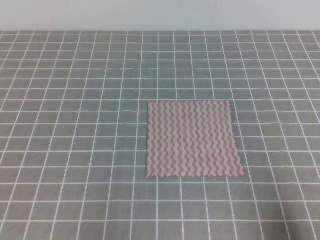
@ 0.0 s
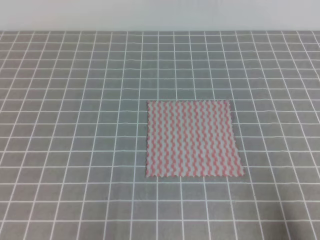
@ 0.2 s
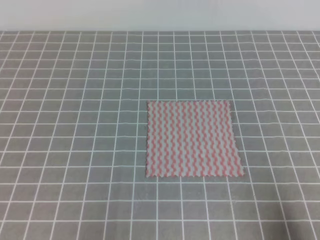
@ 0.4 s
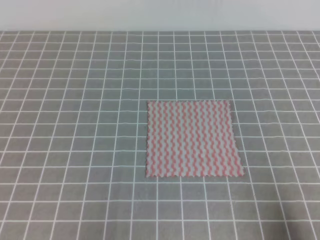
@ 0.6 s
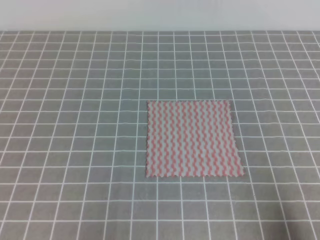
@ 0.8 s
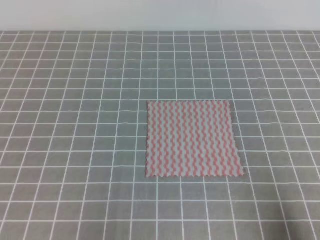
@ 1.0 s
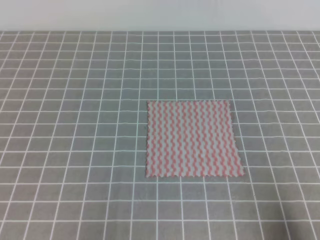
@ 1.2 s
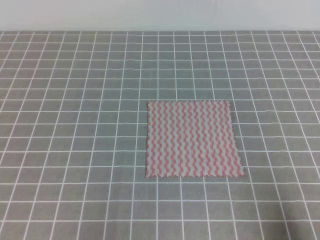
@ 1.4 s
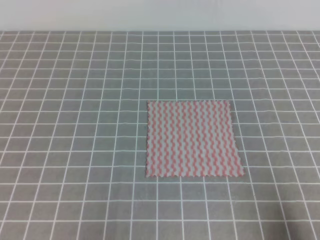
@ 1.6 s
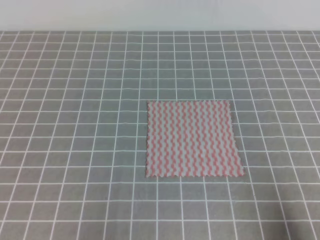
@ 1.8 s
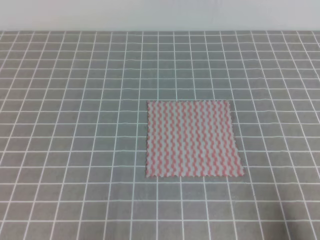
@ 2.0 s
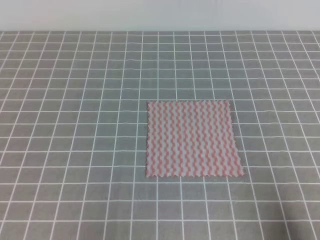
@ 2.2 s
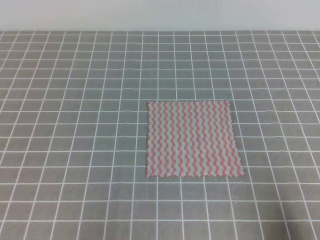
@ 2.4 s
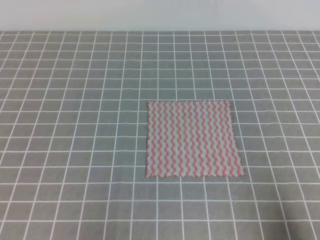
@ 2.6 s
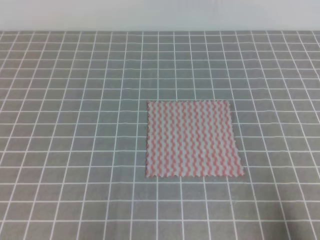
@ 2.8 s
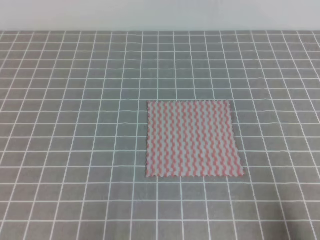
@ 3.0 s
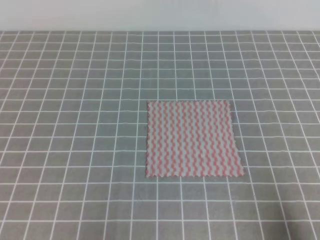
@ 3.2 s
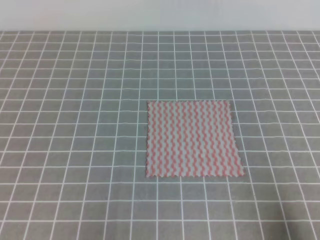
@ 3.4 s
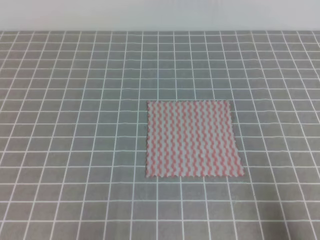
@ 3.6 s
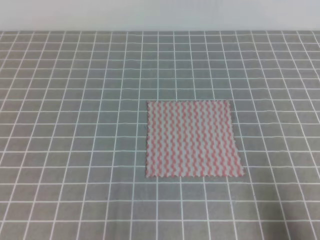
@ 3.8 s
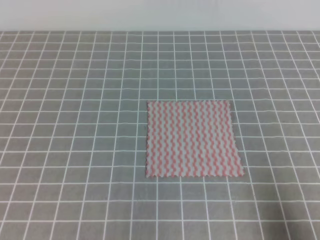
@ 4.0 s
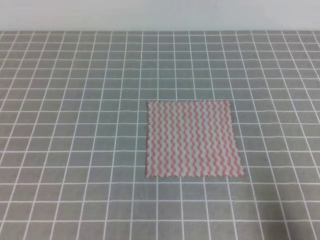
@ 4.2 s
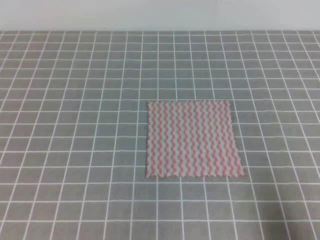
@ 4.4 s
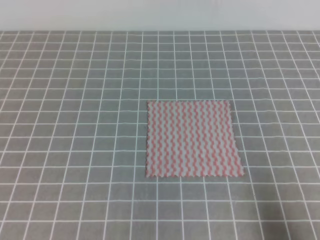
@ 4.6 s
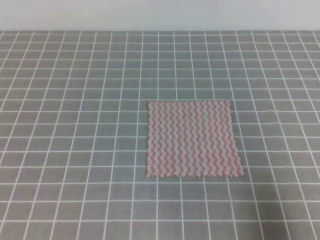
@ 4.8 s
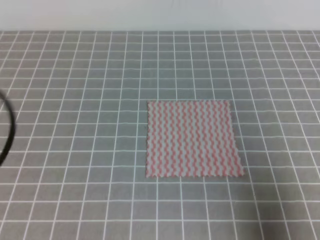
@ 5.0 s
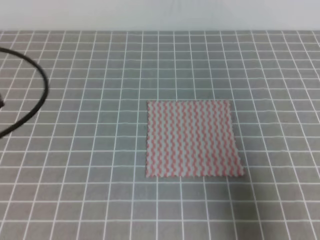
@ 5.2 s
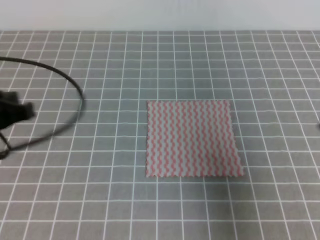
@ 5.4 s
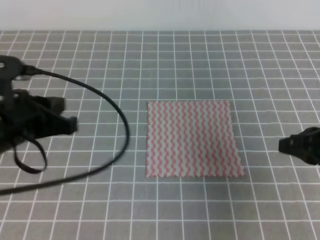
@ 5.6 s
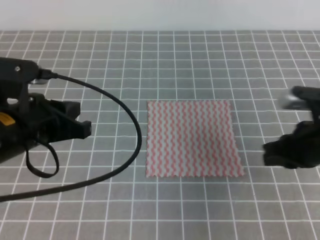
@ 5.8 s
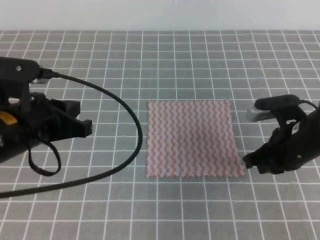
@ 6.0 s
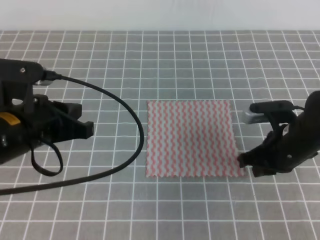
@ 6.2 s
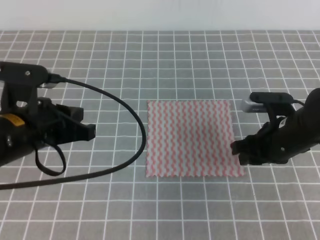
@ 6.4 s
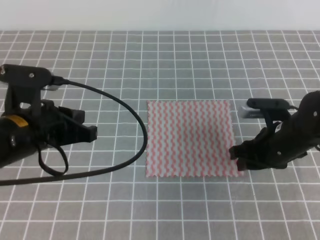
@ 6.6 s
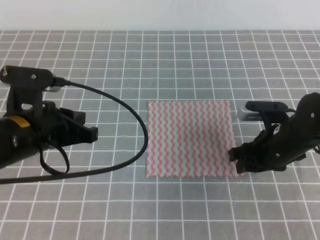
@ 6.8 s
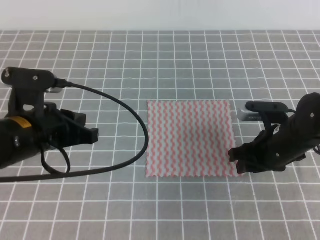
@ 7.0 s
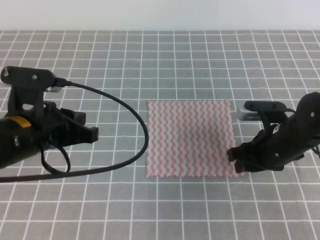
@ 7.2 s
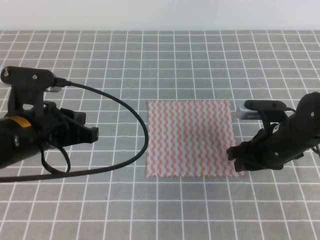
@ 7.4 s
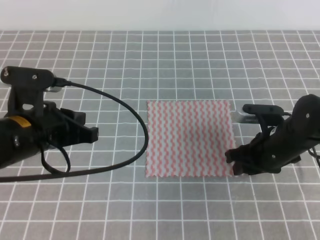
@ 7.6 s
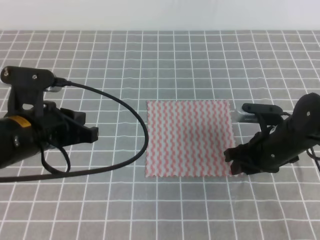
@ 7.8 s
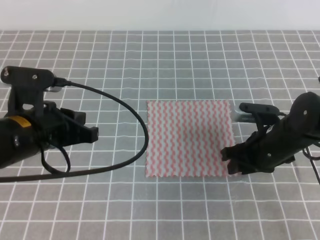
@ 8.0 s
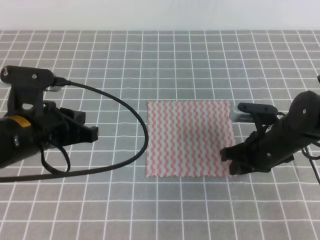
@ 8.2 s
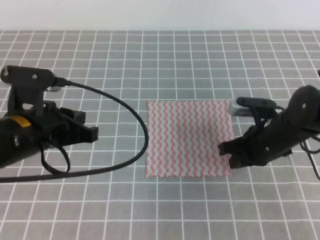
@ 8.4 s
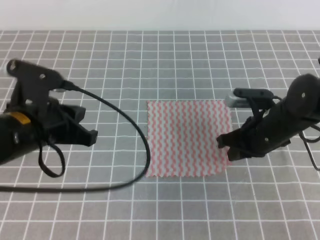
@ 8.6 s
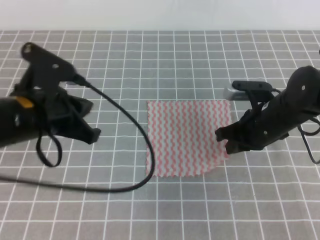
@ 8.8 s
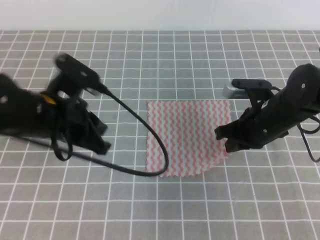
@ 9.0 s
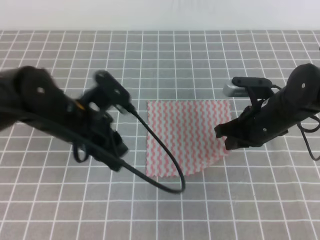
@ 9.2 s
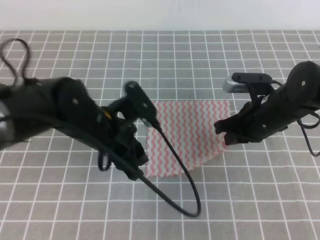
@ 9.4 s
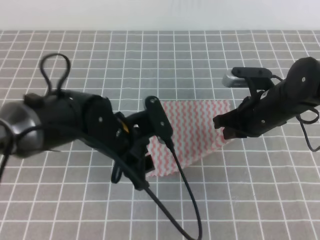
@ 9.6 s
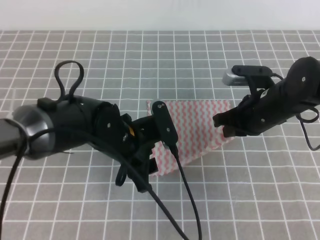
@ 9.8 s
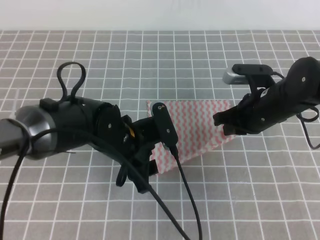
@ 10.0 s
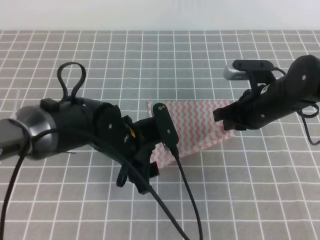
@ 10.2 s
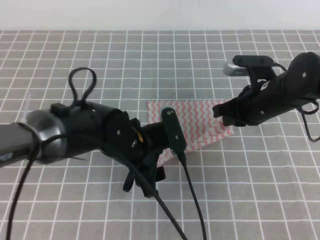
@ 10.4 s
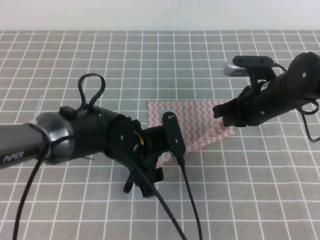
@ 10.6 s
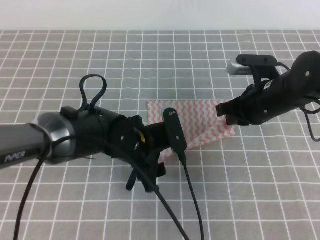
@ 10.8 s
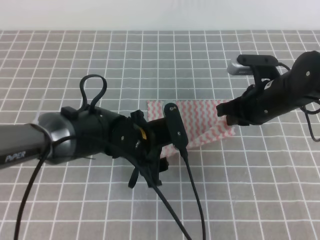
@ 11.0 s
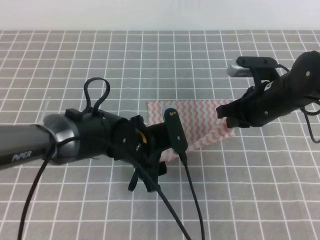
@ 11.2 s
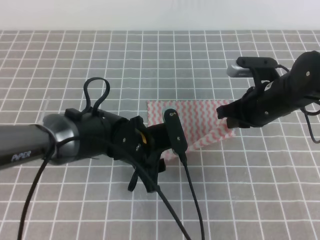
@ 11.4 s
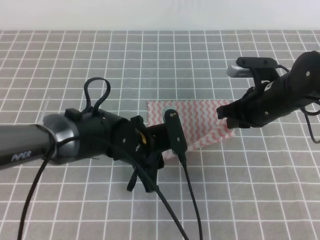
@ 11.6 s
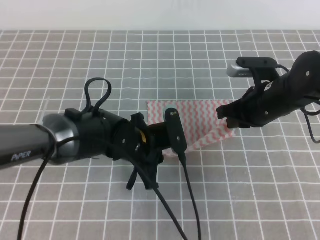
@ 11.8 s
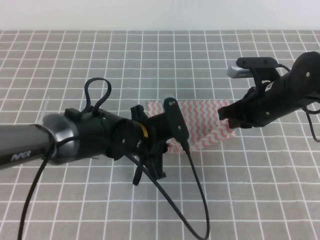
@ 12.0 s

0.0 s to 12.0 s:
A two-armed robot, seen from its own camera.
Step, 0.0 to 10.6 s: Fold the towel upwards with the both gripper.
0.0 to 3.0 s: Both grippers stay about where they are.
4.4 to 6.0 s: The left gripper goes about 20 cm forward and to the right, while the right gripper shifts some 25 cm forward and to the left.
6.0 to 7.6 s: The right gripper moves some 5 cm, and opens up.
7.6 to 9.0 s: The right gripper closes its fingers.
9.0 to 10.4 s: The left gripper travels to the right and downward by some 15 cm, and opens its fingers.
10.4 to 12.0 s: The left gripper closes its fingers.

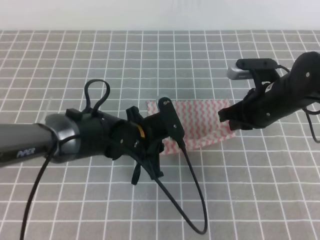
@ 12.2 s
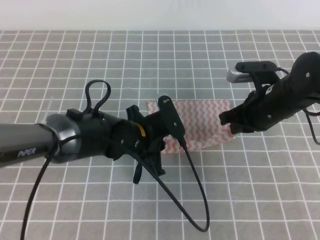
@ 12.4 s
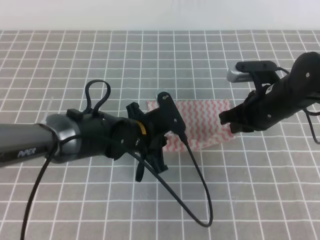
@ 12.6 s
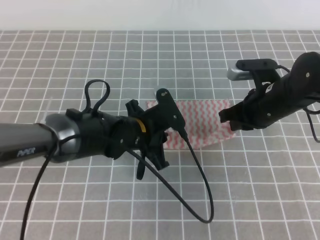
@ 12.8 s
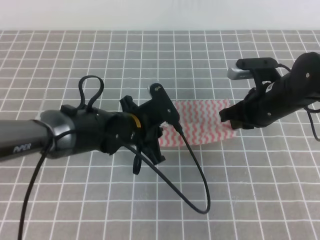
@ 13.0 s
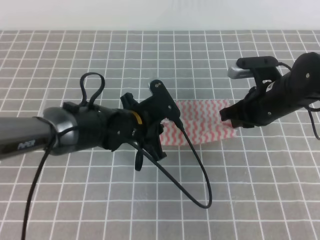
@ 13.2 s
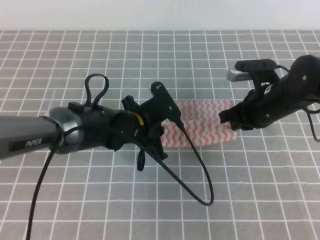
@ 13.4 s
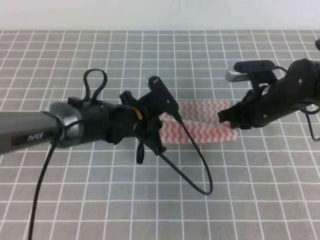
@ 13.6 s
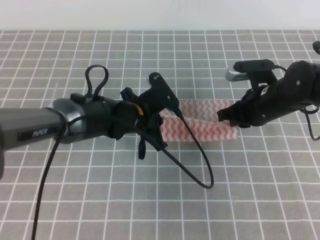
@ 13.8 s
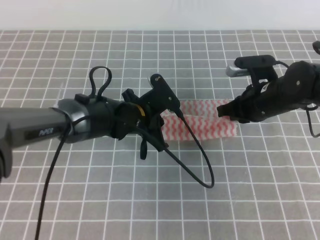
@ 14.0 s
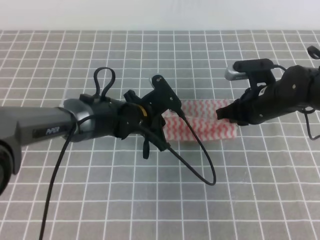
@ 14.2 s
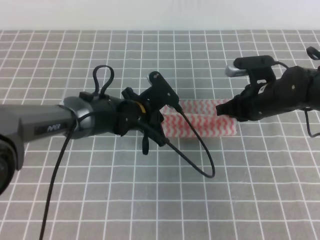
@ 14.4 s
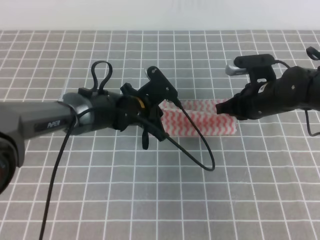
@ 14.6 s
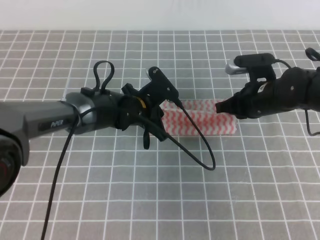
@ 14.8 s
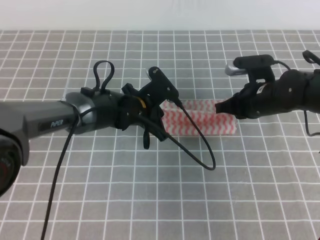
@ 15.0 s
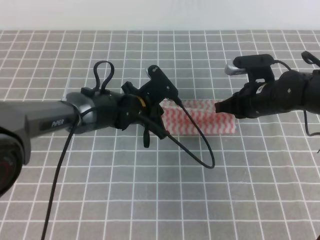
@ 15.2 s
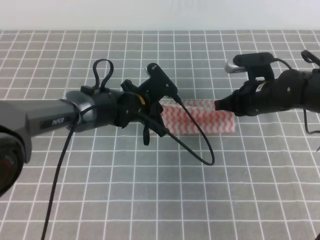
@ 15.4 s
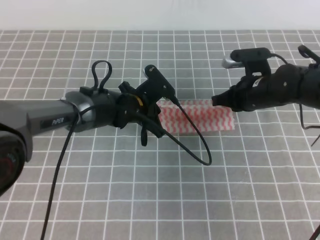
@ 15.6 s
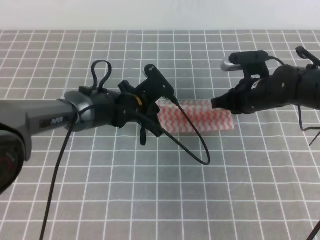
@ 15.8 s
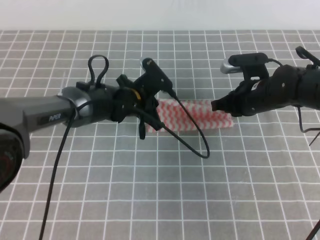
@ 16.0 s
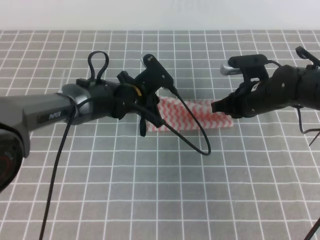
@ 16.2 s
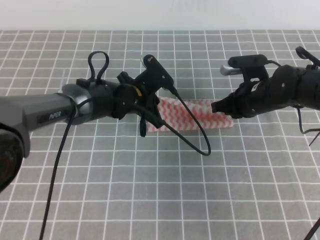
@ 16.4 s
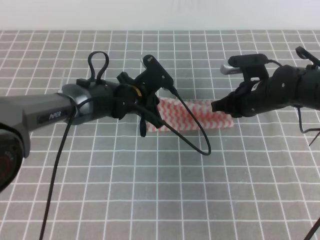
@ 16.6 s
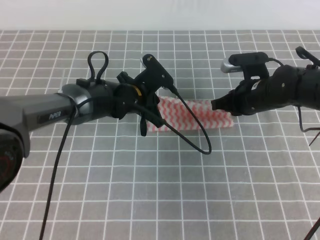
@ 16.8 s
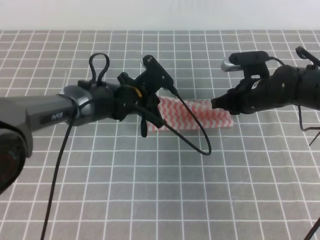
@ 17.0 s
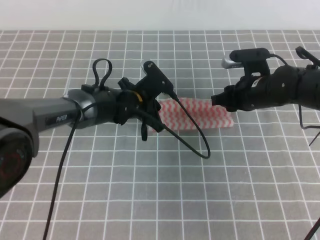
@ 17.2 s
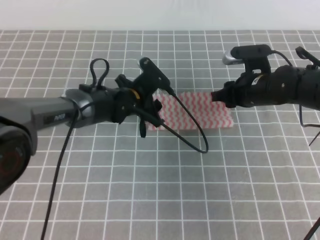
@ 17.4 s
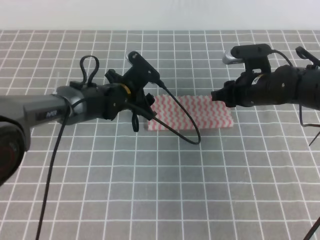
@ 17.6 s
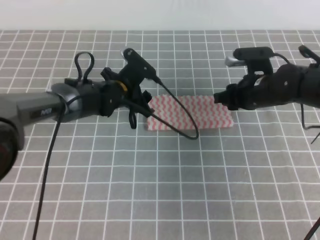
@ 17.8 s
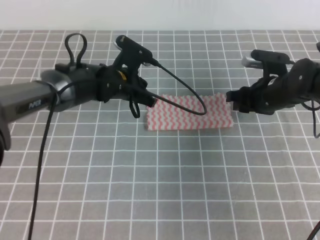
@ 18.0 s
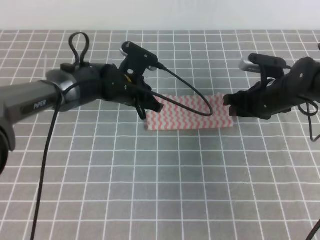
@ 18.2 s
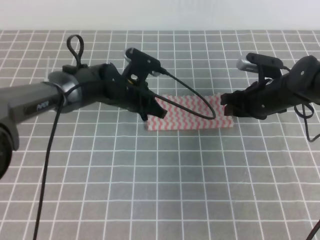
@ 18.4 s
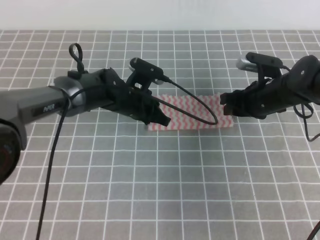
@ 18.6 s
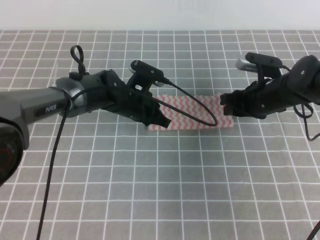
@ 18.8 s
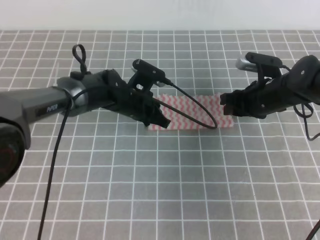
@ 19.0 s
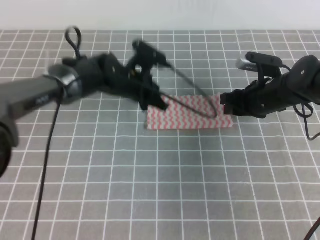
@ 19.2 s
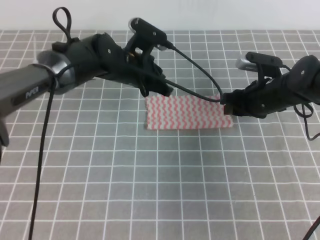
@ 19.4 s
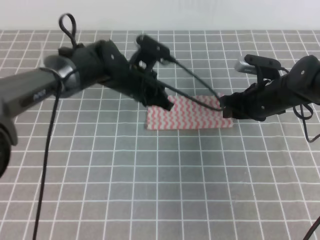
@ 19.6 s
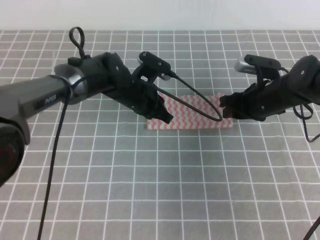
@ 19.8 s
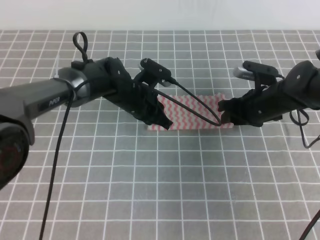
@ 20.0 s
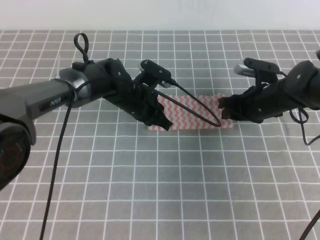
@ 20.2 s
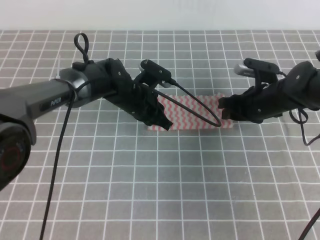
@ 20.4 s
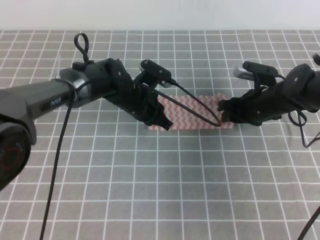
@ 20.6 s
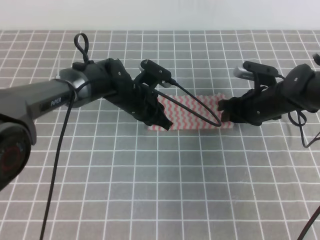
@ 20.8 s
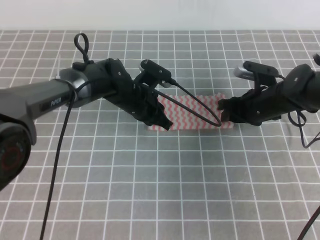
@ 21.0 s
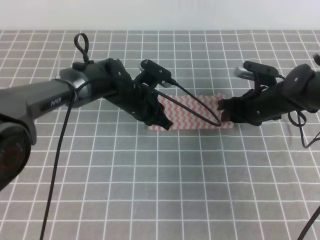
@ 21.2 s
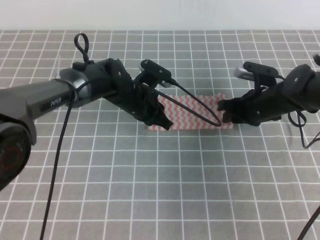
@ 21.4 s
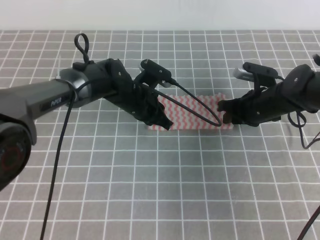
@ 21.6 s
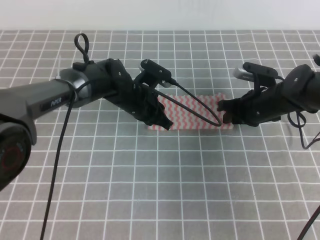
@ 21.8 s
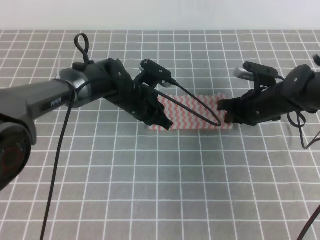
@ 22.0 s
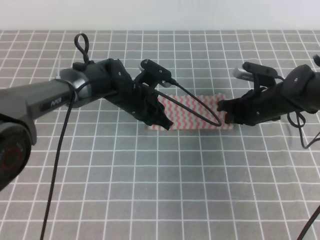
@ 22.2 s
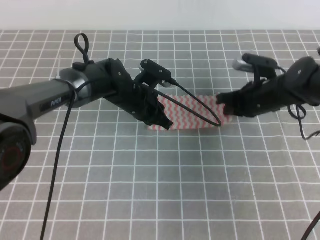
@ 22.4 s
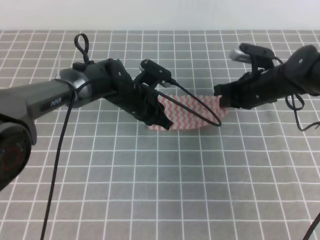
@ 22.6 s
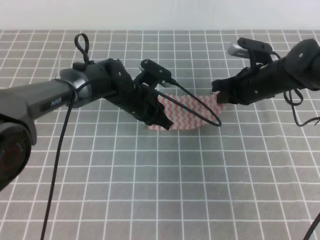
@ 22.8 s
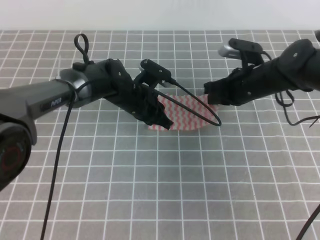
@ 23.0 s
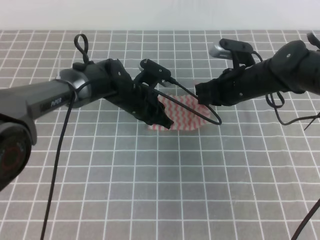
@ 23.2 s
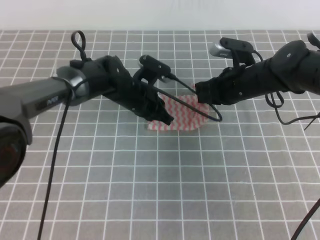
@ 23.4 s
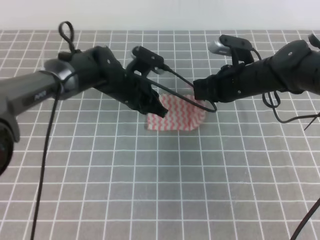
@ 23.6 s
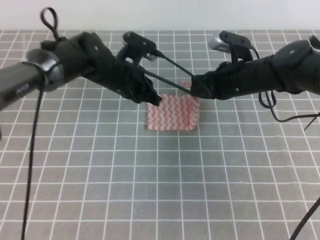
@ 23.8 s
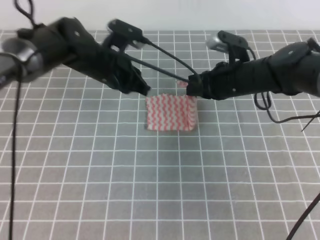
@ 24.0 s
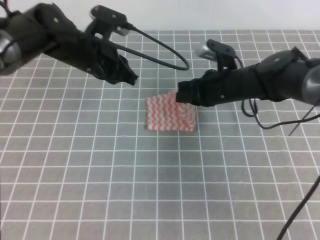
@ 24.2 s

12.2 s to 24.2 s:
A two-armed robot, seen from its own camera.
Step, 12.2 to 15.4 s: Fold the towel from right to left with the right gripper.
Step, 15.6 to 17.2 s: Tidy up the towels.
12.2 to 13.8 s: The grippers stay close to where they were, moving slightly.
13.8 to 16.6 s: The grippers make only small movements.
16.6 to 18.2 s: The left gripper opens and closes again; the right gripper opens up.
18.2 to 21.2 s: The grippers stay close to where they were, moving slightly.
21.2 to 22.6 s: The right gripper closes its fingers.
22.6 to 24.2 s: The left gripper travels upward and to the left by about 15 cm. The right gripper heads to the left, covering about 5 cm.
